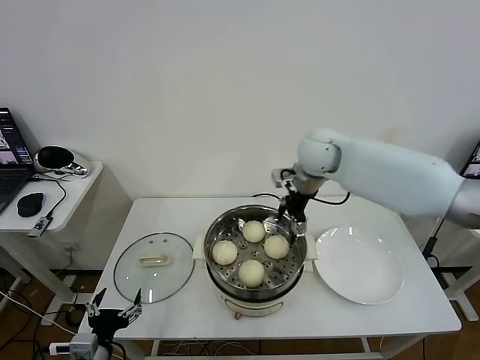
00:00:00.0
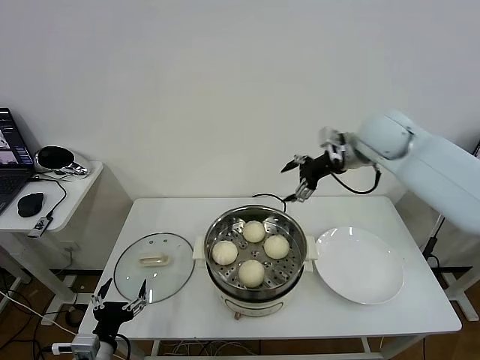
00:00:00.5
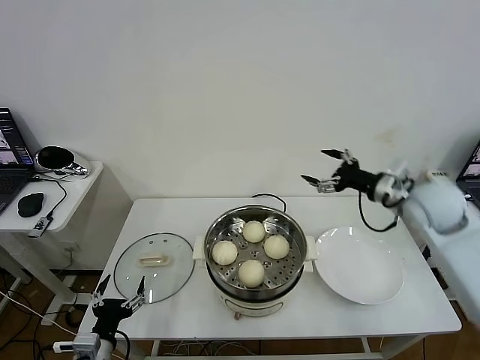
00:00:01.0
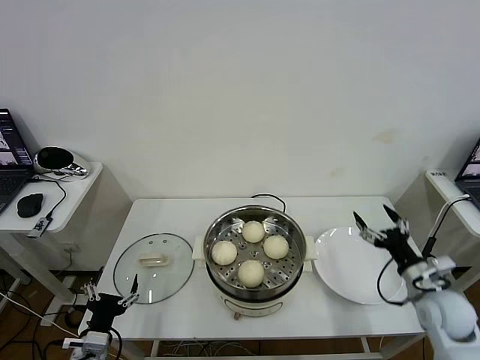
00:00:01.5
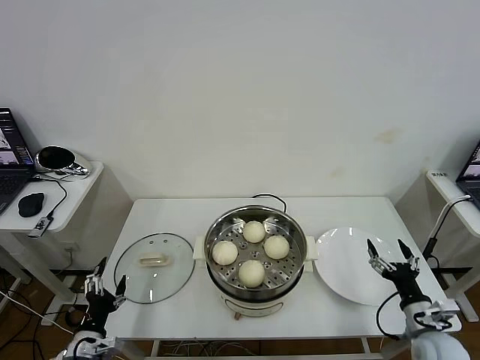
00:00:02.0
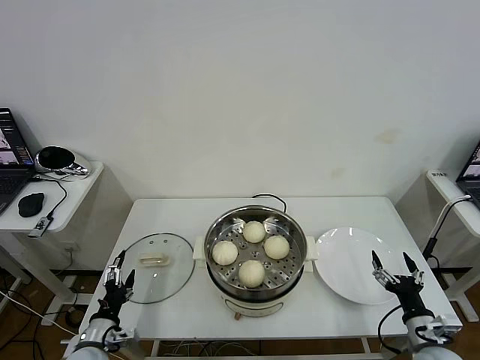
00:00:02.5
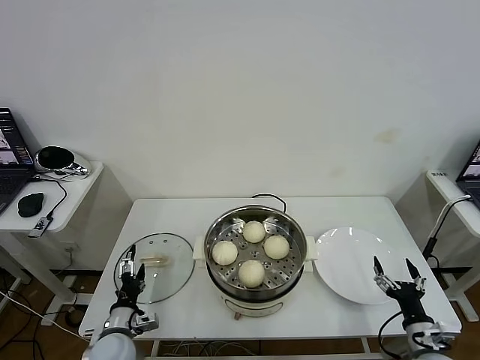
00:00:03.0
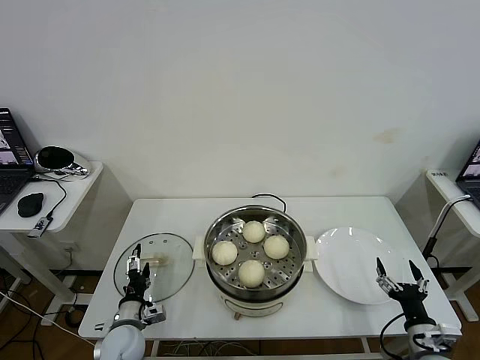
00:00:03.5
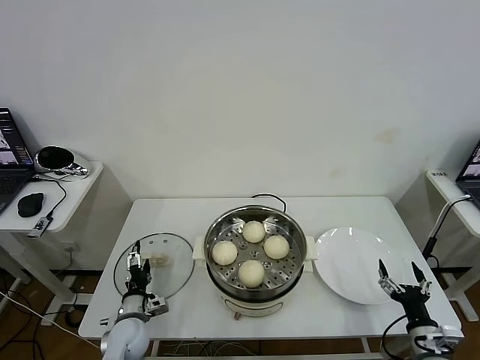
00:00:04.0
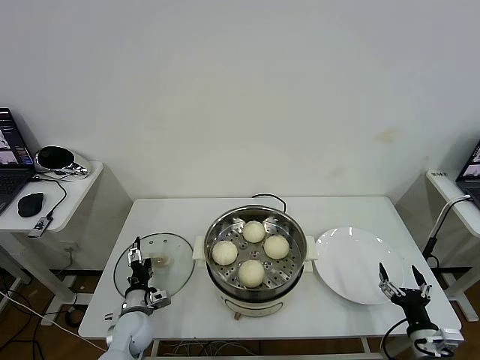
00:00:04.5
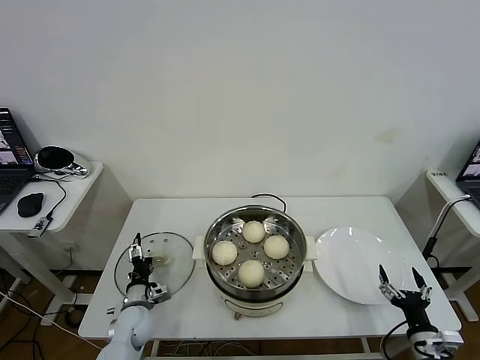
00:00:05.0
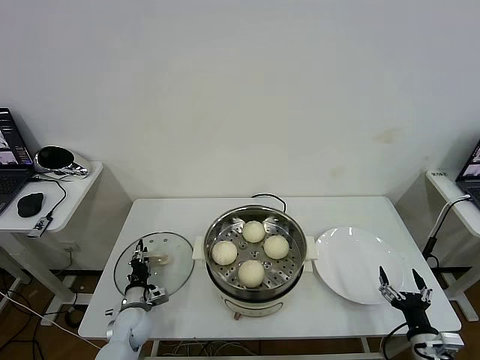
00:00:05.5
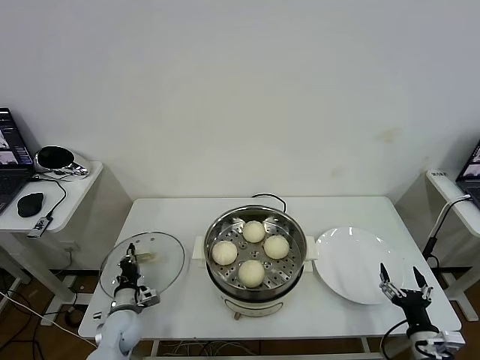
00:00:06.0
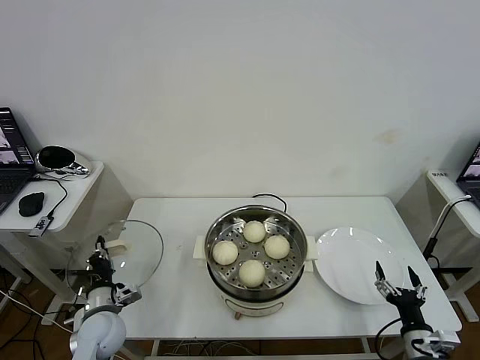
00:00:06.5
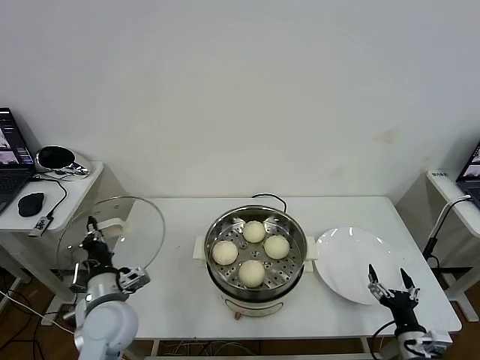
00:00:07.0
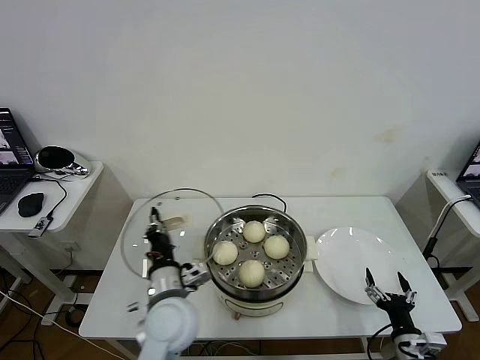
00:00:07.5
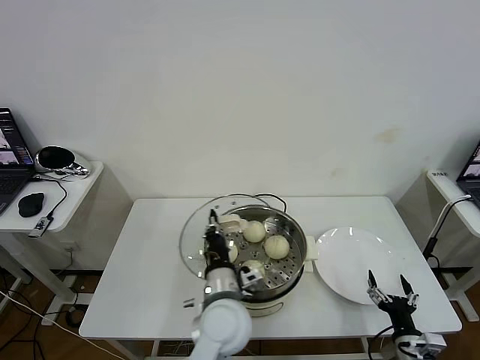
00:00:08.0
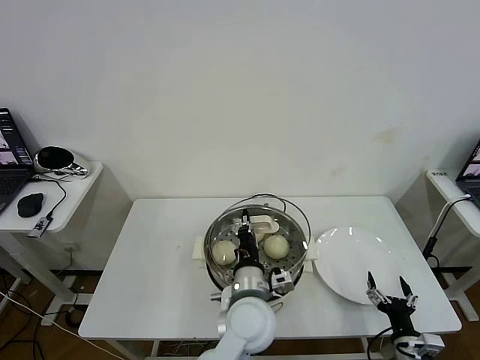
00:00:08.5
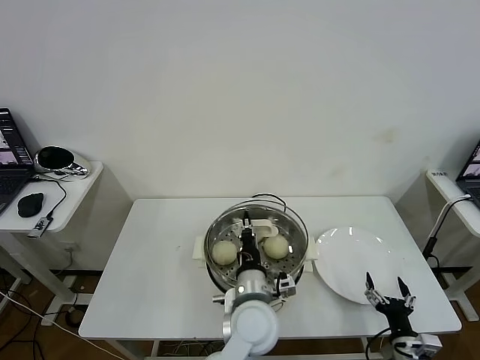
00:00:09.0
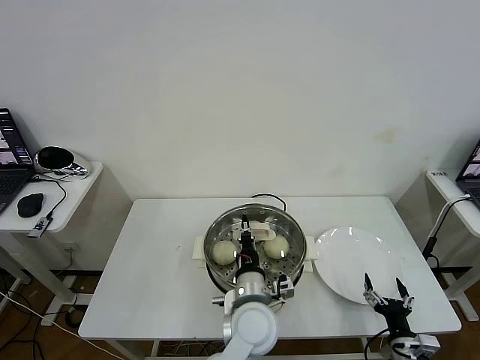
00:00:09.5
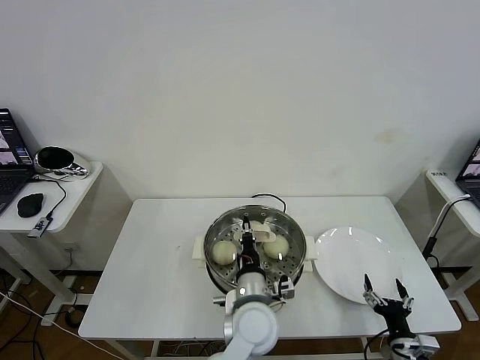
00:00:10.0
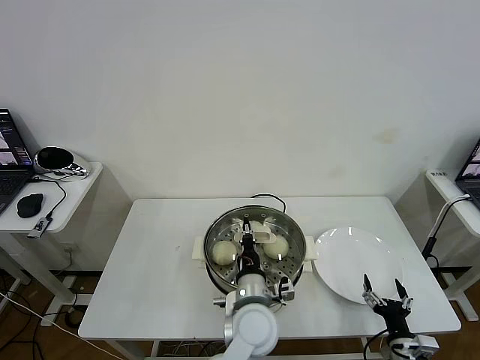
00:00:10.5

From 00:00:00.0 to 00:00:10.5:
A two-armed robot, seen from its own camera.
Task of the whole recording: take steamed baozi put them in steamer then cover it.
Step, from 00:00:00.5 to 00:00:06.0: Grasp the pot lid with left gripper.
From 00:00:00.0 to 00:00:02.0: The left gripper heads downward, covering about 5 cm; the right gripper travels backward, downward and to the right by some 50 cm.
From 00:00:02.0 to 00:00:04.0: The right gripper shifts by some 5 cm, while the left gripper travels forward, to the right and downward by approximately 15 cm.
From 00:00:04.0 to 00:00:06.5: The left gripper moves upward, approximately 5 cm, and closes.
From 00:00:06.5 to 00:00:08.5: The left gripper travels to the right by about 35 cm.
From 00:00:08.5 to 00:00:10.5: There are only small adjustments of the grippers.

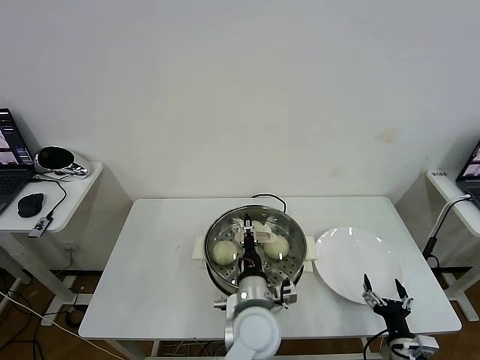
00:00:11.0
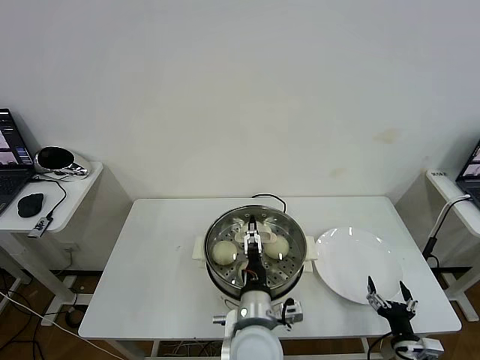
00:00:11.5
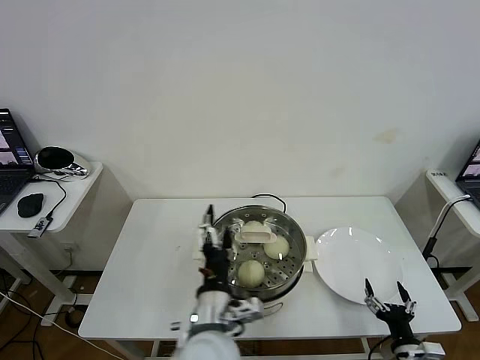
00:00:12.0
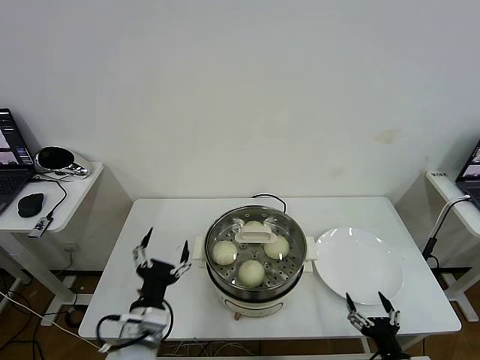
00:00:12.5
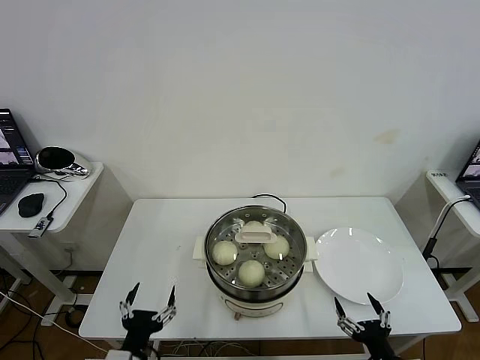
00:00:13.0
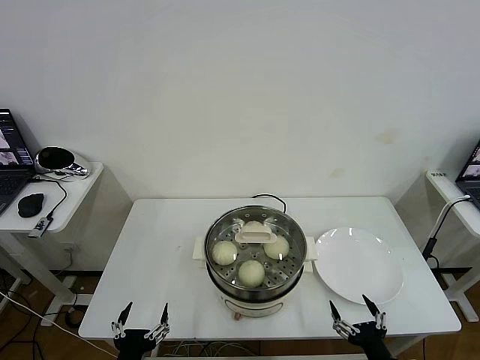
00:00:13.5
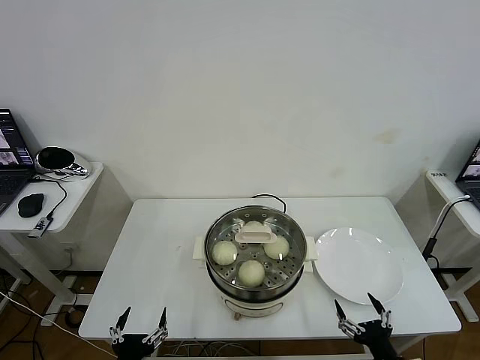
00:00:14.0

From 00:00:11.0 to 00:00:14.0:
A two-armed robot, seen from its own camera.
Task of the whole recording: take steamed baozi put them in steamer then cover it.
From 00:00:11.0 to 00:00:12.5: The left gripper moves to the left, about 20 cm, and opens up. Meanwhile the right gripper moves some 5 cm.
From 00:00:12.5 to 00:00:14.0: The left gripper shifts about 15 cm backward, downward and to the left.

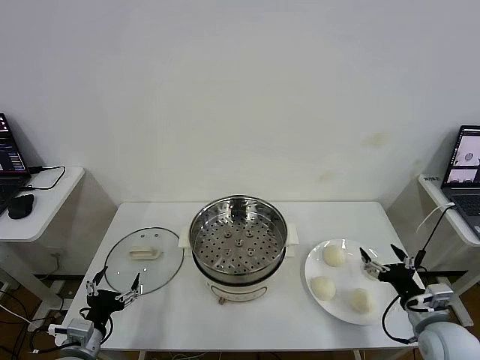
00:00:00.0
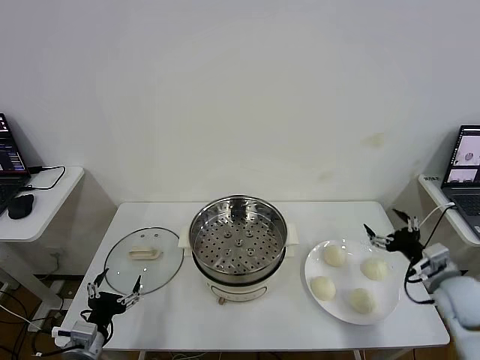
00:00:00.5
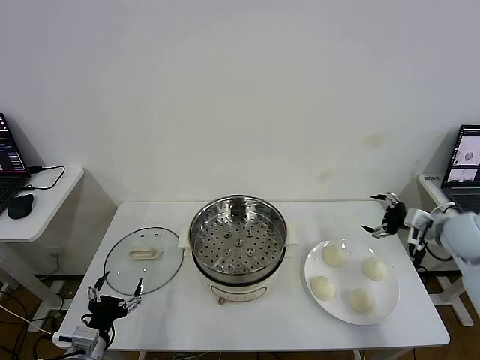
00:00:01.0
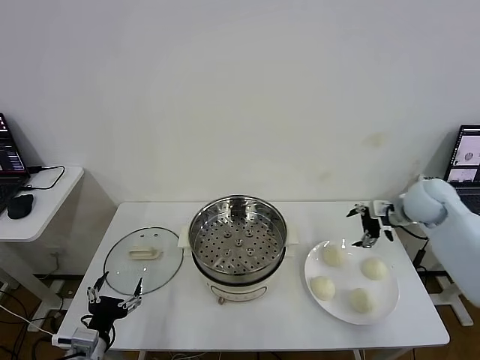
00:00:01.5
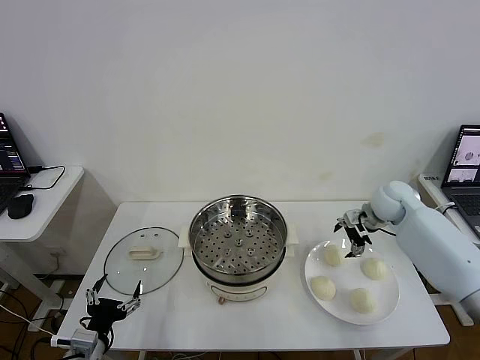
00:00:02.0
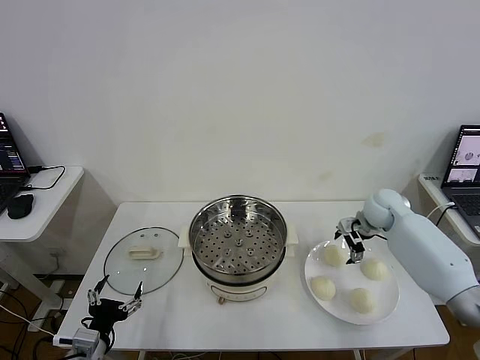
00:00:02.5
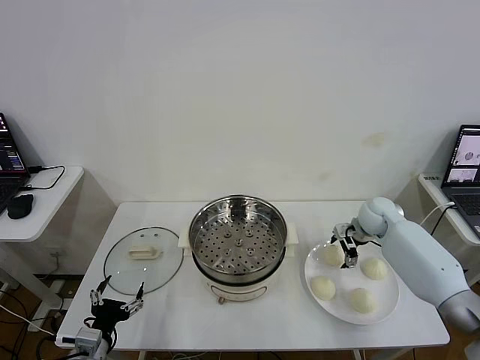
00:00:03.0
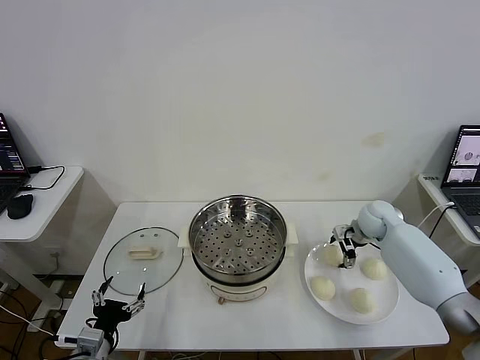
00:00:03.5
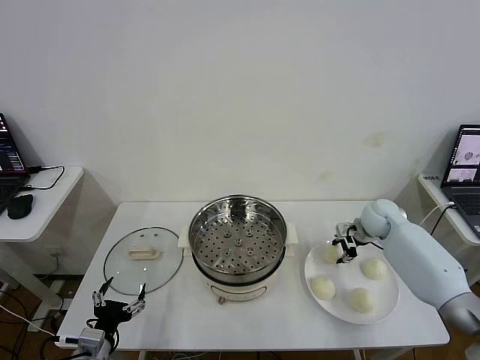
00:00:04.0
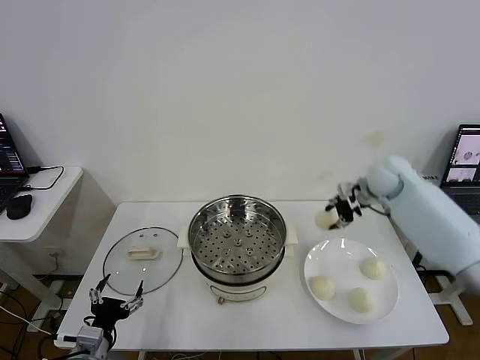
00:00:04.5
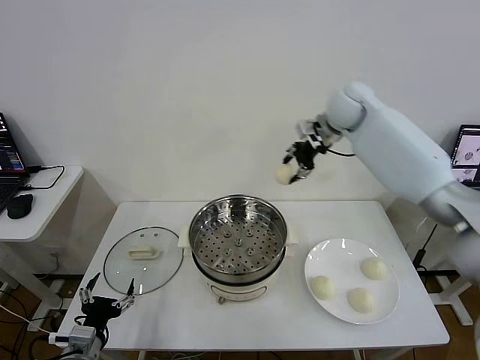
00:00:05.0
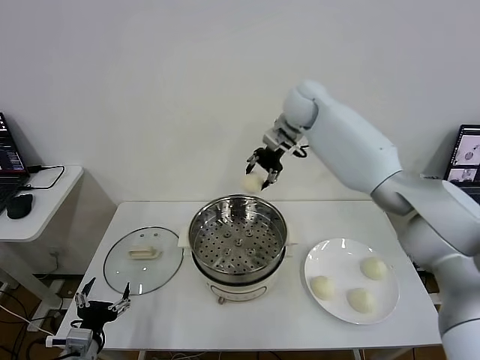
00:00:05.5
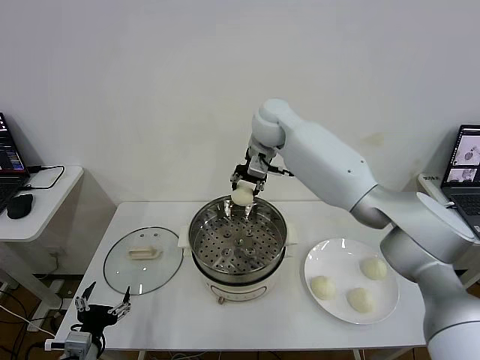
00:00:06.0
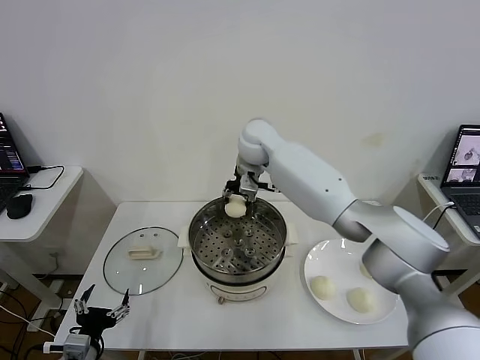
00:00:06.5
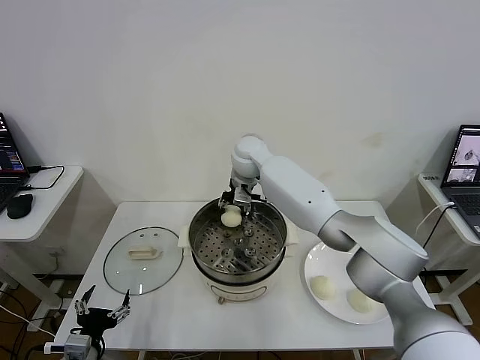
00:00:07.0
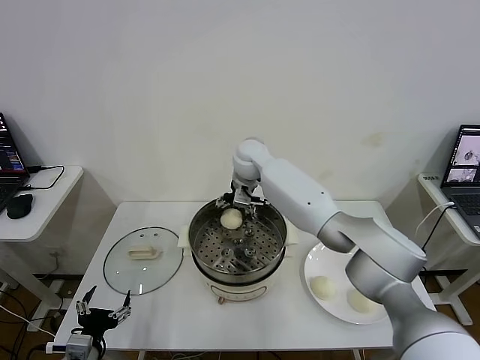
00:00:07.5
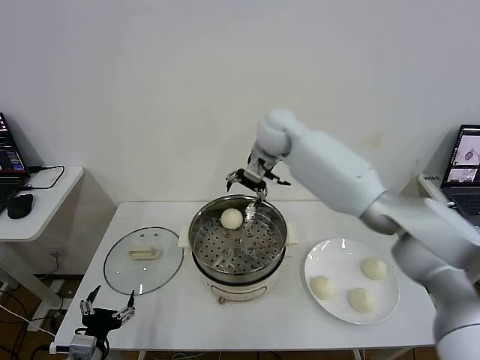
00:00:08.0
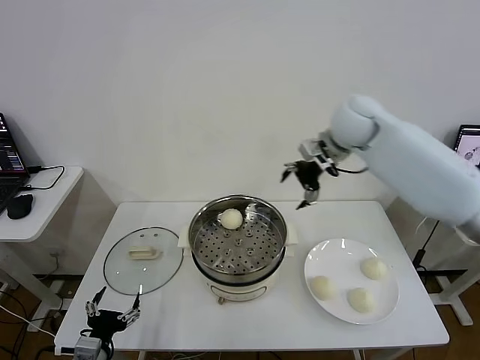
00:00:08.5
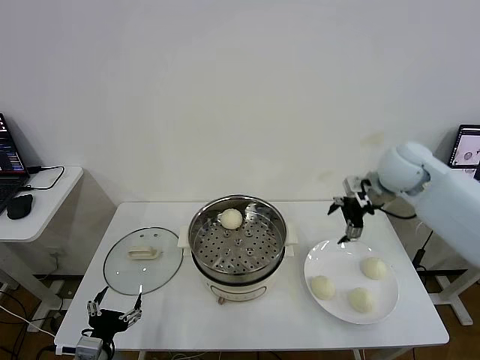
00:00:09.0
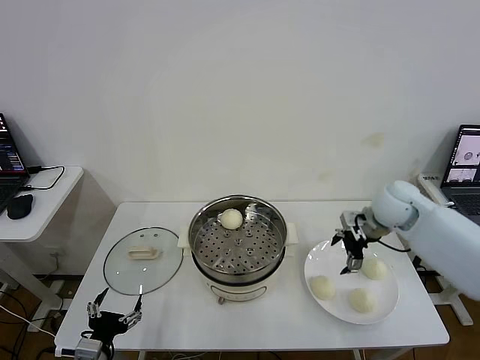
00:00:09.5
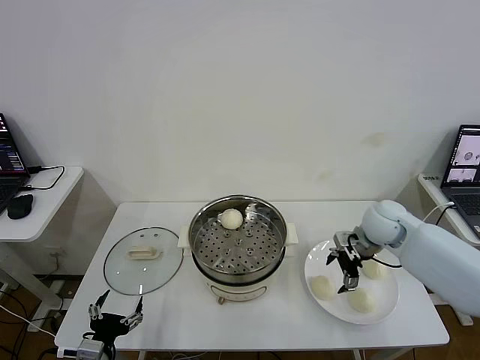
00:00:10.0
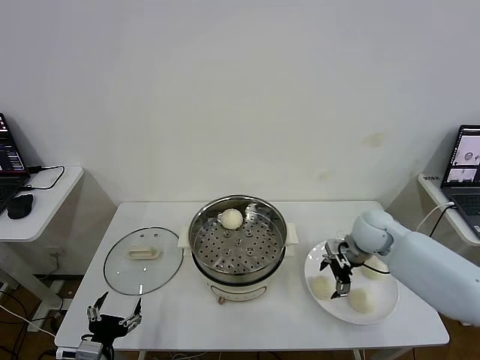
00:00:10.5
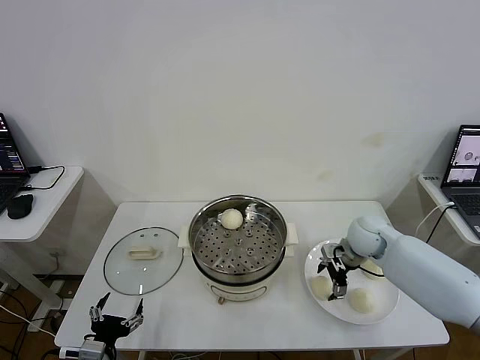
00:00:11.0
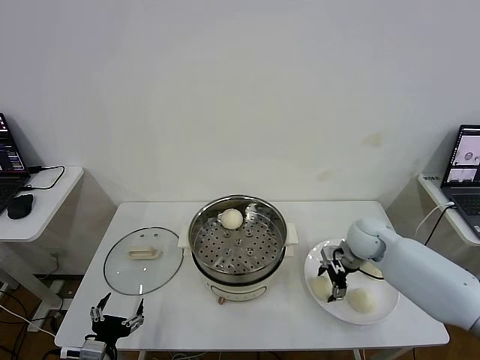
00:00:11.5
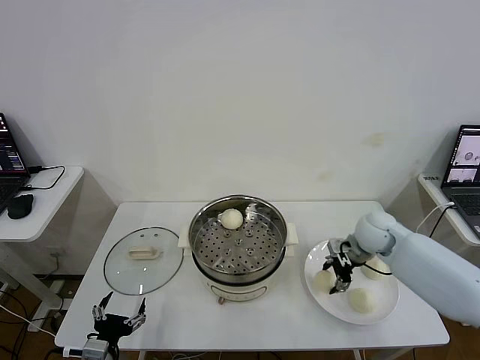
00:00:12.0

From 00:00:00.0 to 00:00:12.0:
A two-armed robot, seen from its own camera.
Task of the whole recording: take steamed baozi put them in steamer then cover it.
Step, from 00:00:00.0 to 00:00:03.5: Grasp the baozi in the plate with right gripper.
Step, from 00:00:04.0 to 00:00:07.5: Place the baozi on the steamer with right gripper.
Step, from 00:00:08.0 to 00:00:11.5: Grasp the baozi in the plate with right gripper.
From 00:00:02.0 to 00:00:04.0: The right gripper closes up.
From 00:00:04.0 to 00:00:06.0: The right gripper is displaced to the left and upward by about 35 cm.
From 00:00:06.0 to 00:00:08.0: The right gripper shifts roughly 5 cm to the right, goes downward and returns, about 10 cm each way, and opens its fingers.
From 00:00:08.0 to 00:00:10.0: The right gripper shifts about 30 cm to the right, downward and backward.
From 00:00:10.0 to 00:00:12.0: The right gripper closes up.
